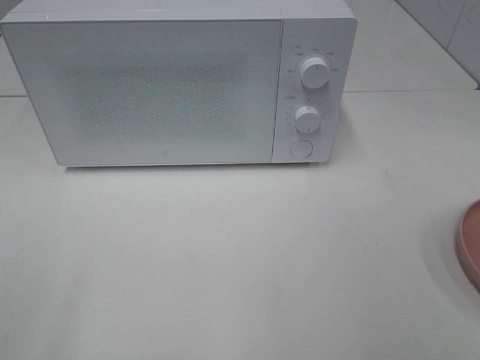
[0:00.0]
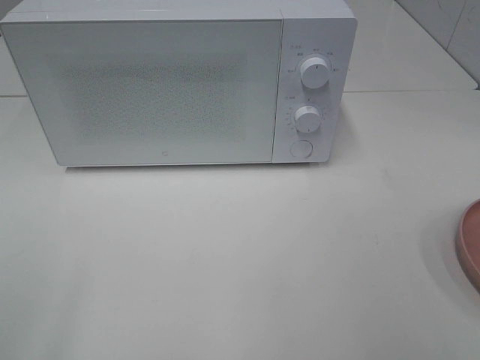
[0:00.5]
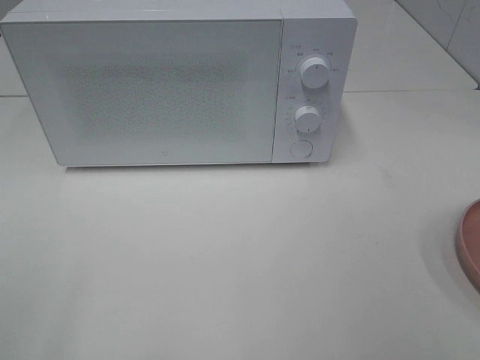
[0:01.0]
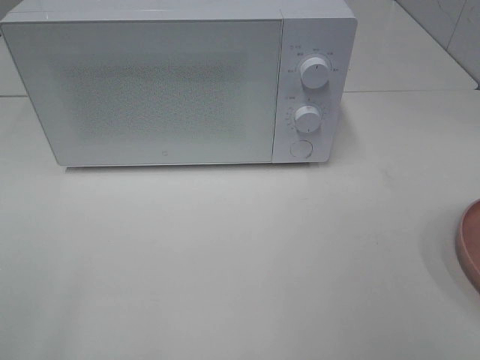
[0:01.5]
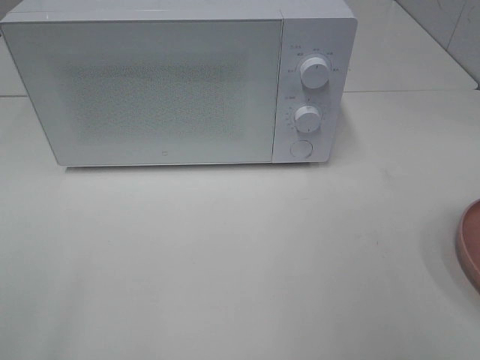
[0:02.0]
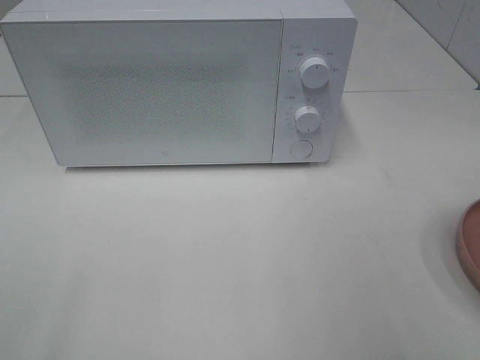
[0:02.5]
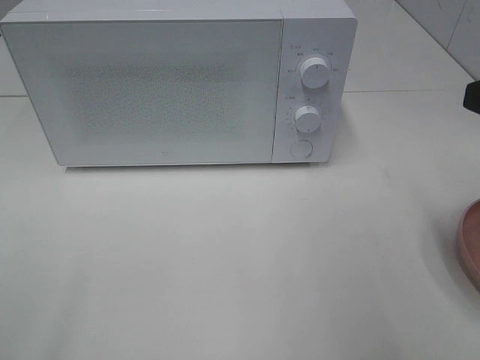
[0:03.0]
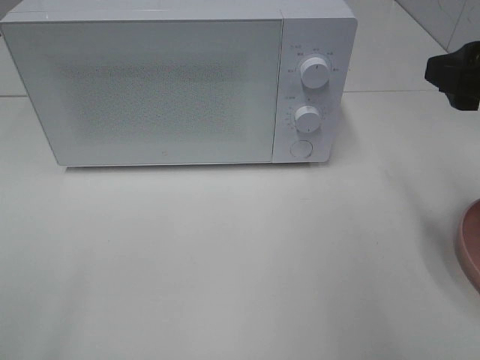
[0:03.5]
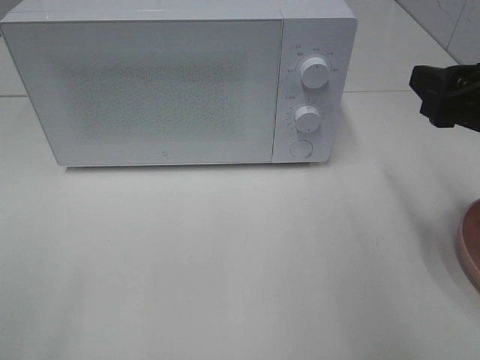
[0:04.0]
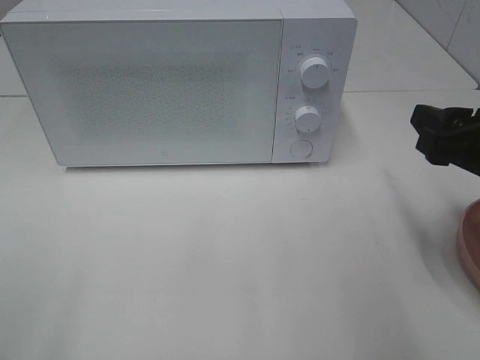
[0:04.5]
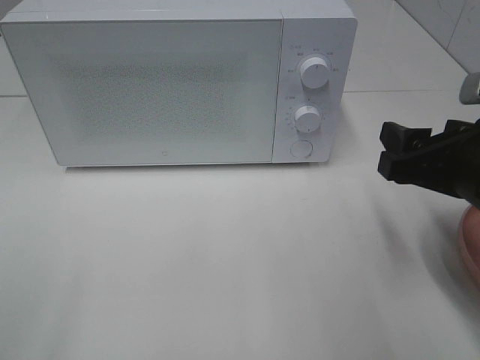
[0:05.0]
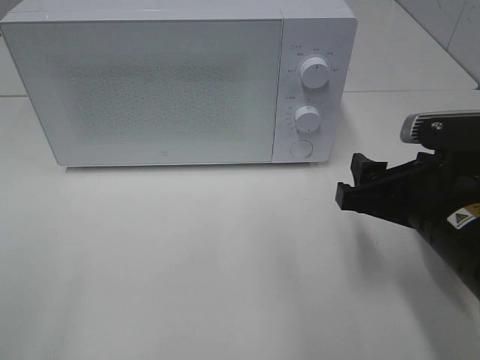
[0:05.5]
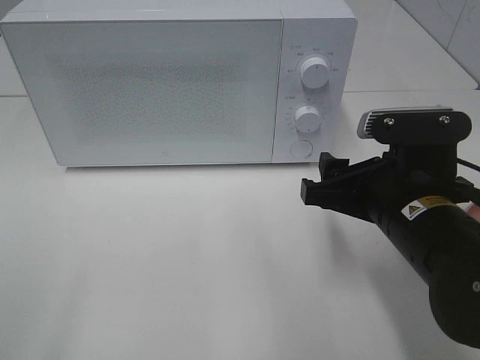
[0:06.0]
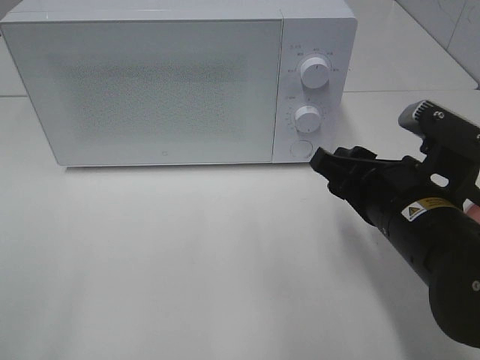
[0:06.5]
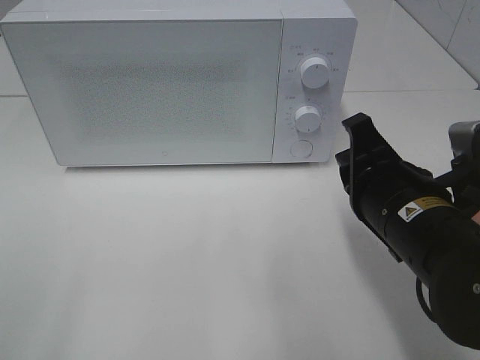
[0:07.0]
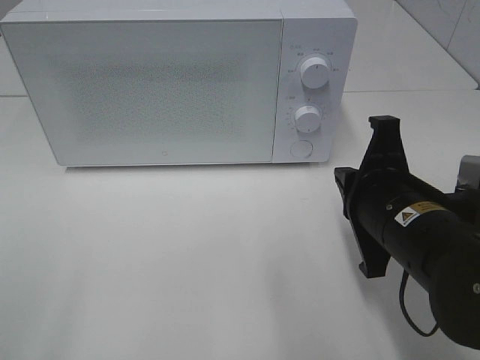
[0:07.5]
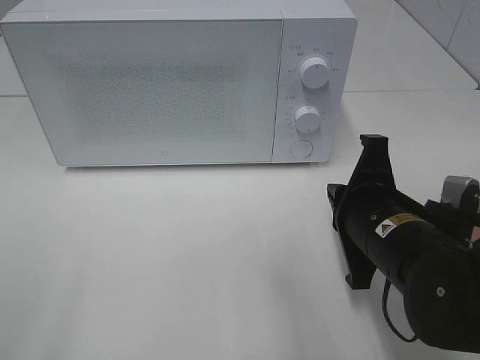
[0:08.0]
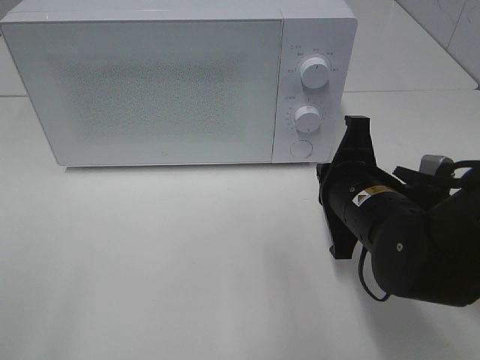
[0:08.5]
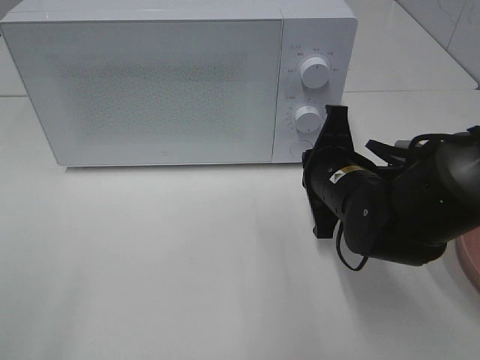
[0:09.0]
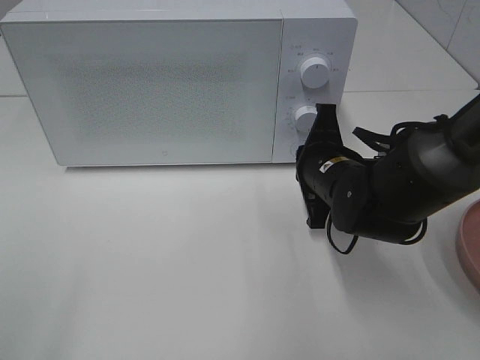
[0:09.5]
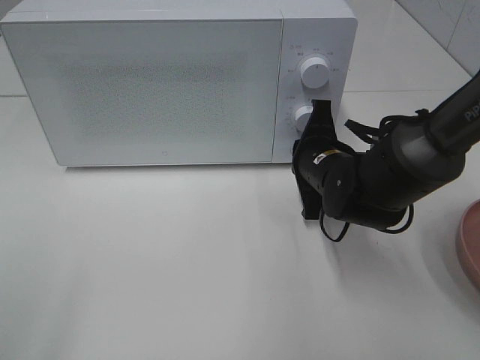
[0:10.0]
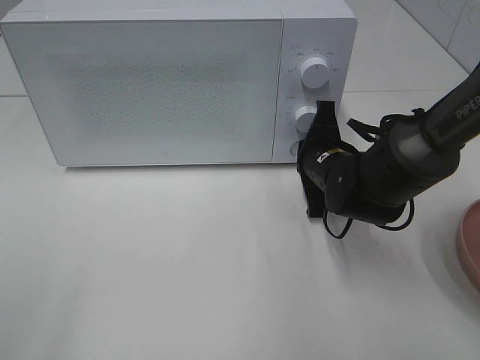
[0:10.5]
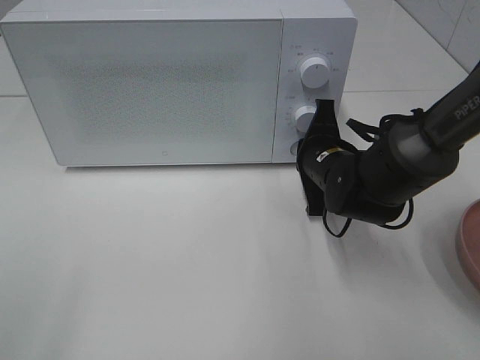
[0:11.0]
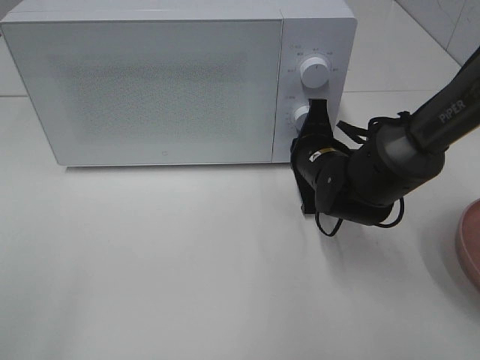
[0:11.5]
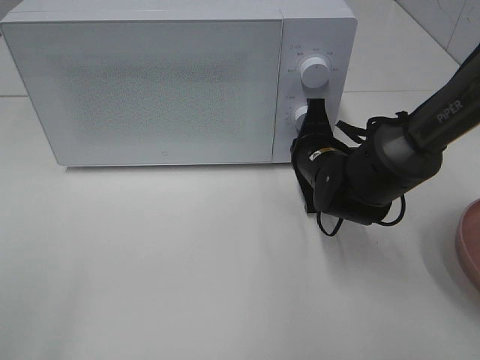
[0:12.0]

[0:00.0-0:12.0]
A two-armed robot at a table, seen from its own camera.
Task of the whole recording: Heat the burger.
0:02.0 to 0:04.0: The right gripper heads forward and downward, covering some 15 cm.
0:04.0 to 0:06.0: The right gripper travels to the left and downward by about 15 cm.
0:06.0 to 0:08.0: The right gripper closes its fingers.
0:08.0 to 0:10.0: The right gripper goes approximately 15 cm forward.
0:10.0 to 0:12.0: The grippers stay close to where they were, moving slightly.

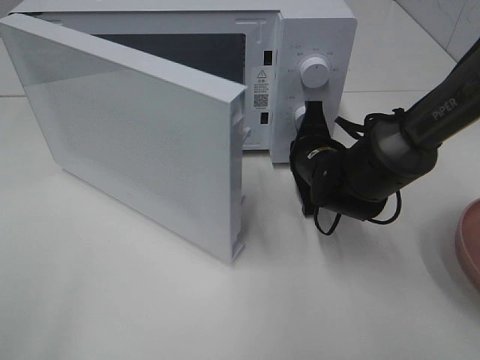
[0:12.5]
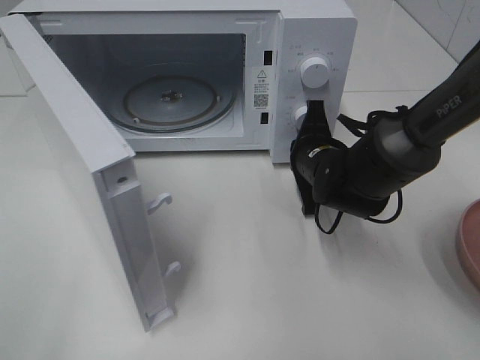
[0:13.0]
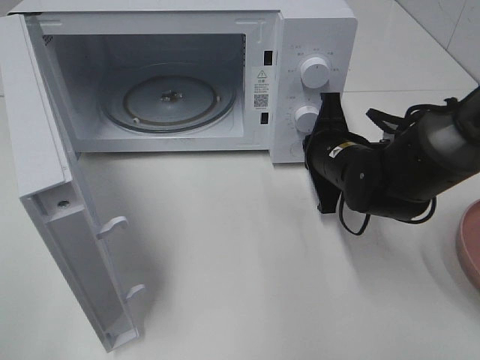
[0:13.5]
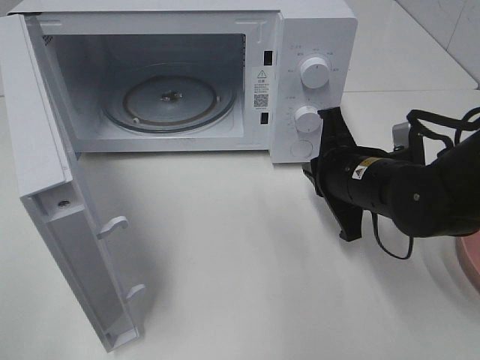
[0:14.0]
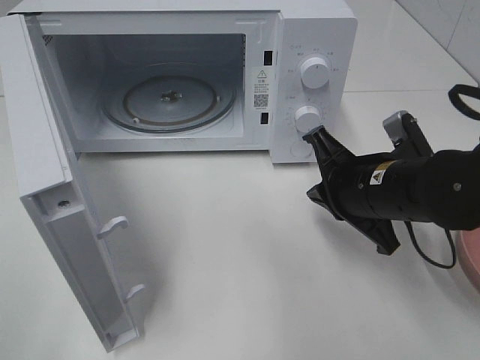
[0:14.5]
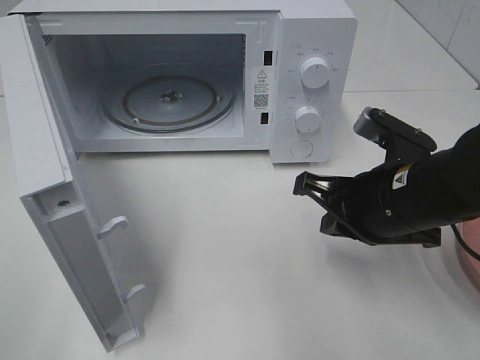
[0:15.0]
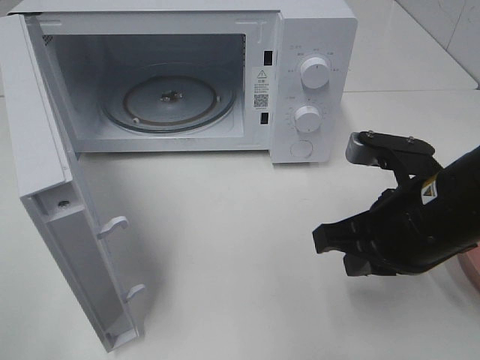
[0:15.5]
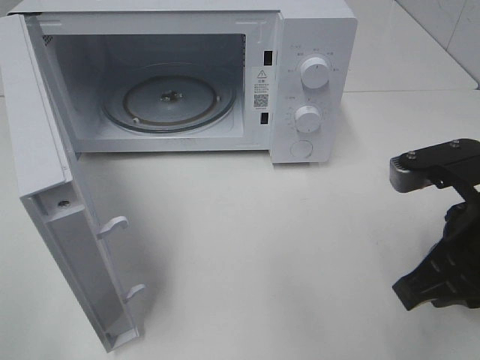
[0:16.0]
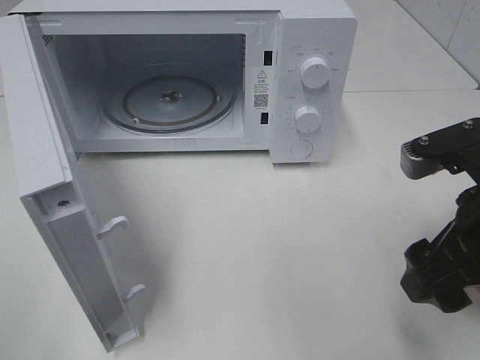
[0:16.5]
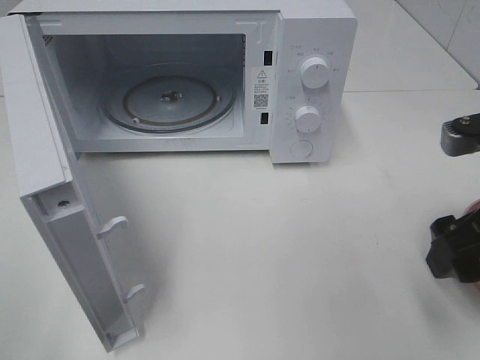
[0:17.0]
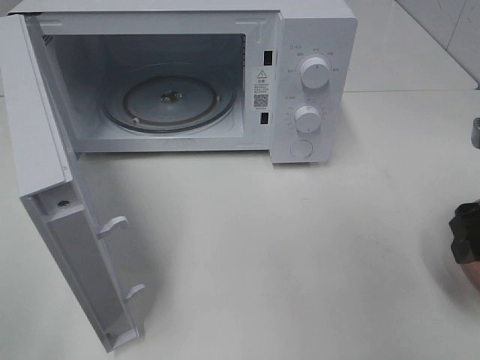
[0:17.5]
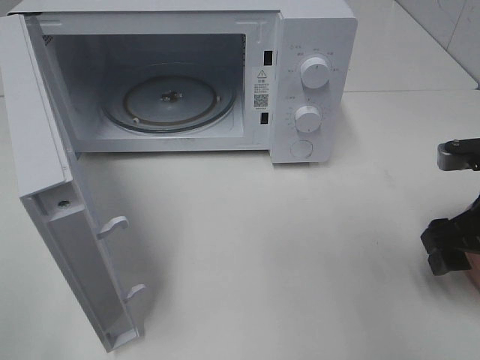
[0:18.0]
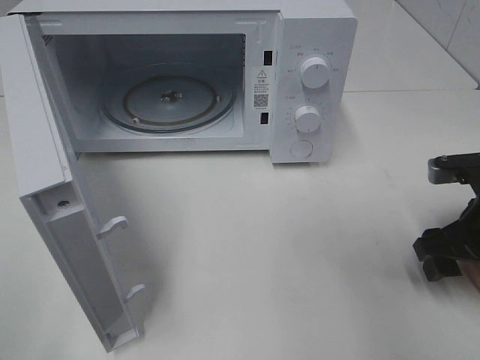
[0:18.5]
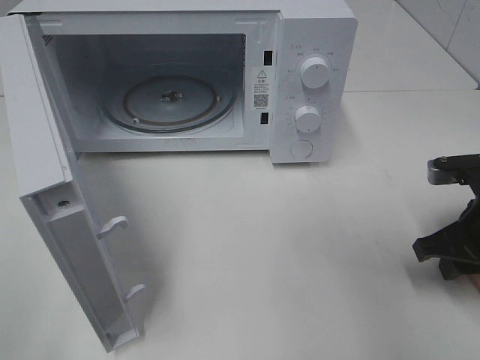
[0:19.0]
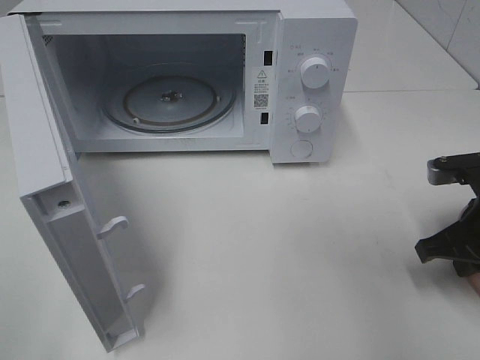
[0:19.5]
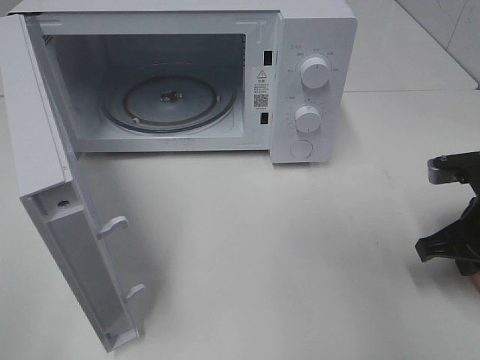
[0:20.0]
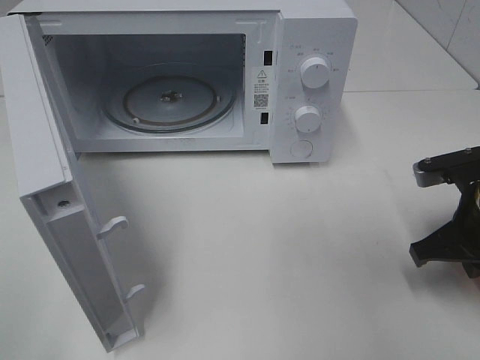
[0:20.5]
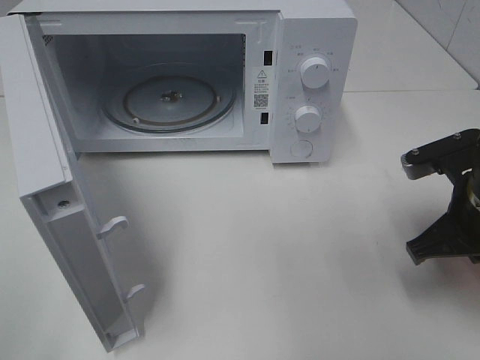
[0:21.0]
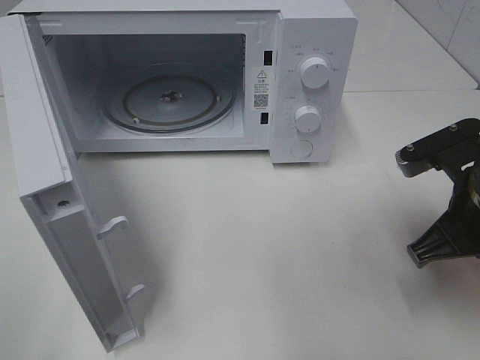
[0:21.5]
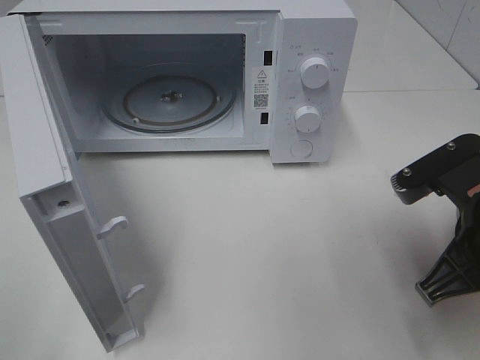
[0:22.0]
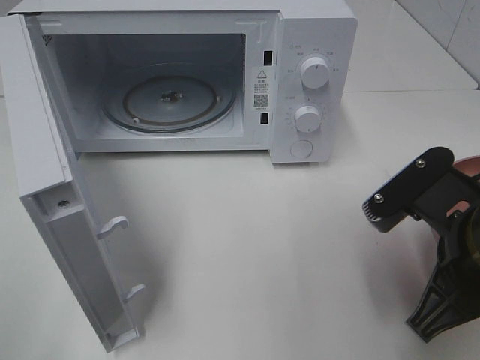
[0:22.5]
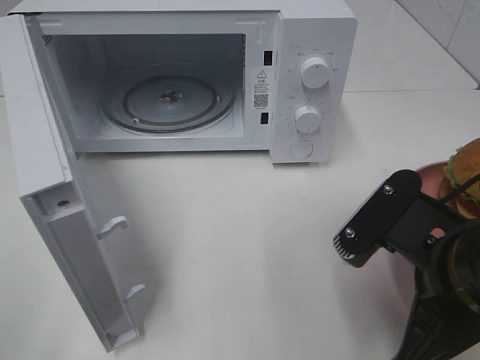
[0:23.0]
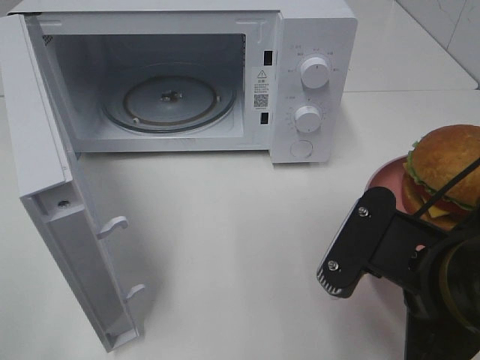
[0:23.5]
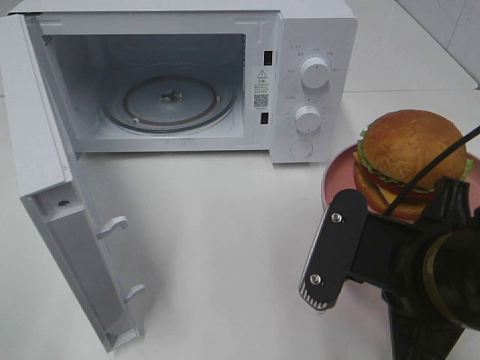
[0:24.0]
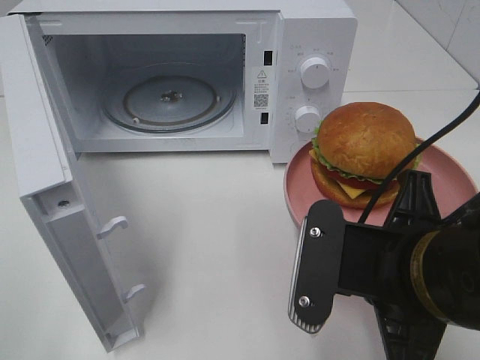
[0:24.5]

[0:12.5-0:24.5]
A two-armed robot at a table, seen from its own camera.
Task of the whole recording: Heat the burger.
Step, 0:14.0 to 0:20.0: Right hand: grab the plate with the hamburger.
0:12.5 to 0:14.5: The right gripper heads backward and upward, covering roughly 10 cm.
0:14.5 to 0:16.5: The right gripper travels backward, upward and to the right by some 15 cm, and opens.
0:16.5 to 0:18.5: The right gripper heads downward, forward and to the right, covering some 15 cm.
0:18.5 to 0:20.5: The right gripper closes up.
0:20.5 to 0:22.5: The right gripper is displaced backward, to the left and upward by some 15 cm.
0:22.5 to 0:24.5: The right gripper shifts some 5 cm to the left.

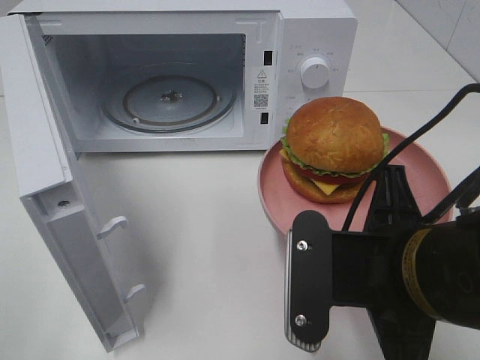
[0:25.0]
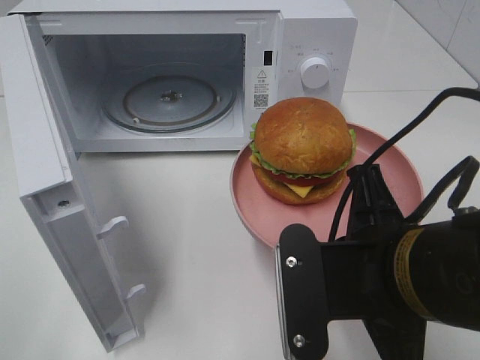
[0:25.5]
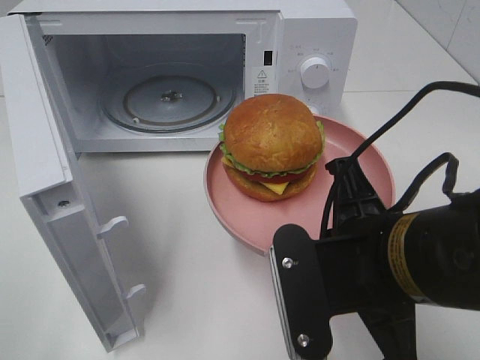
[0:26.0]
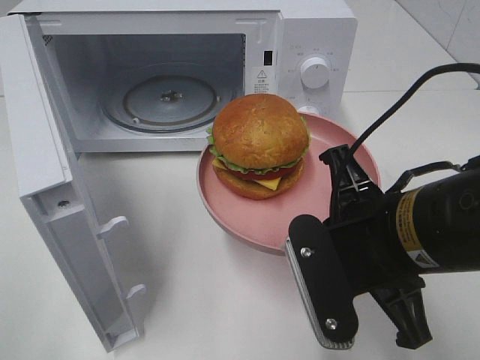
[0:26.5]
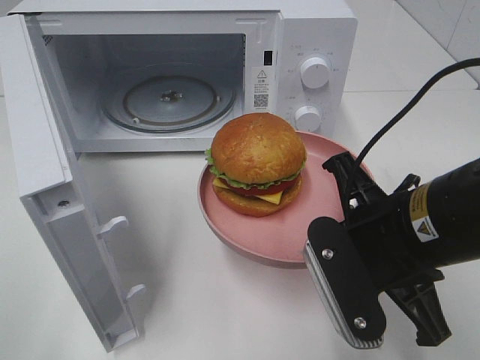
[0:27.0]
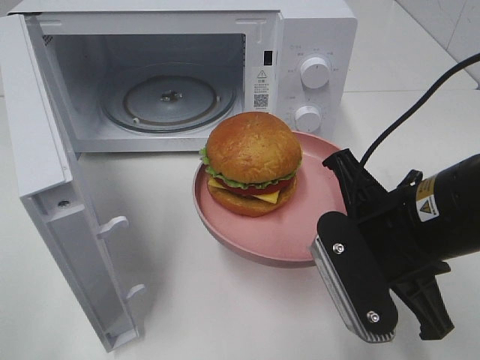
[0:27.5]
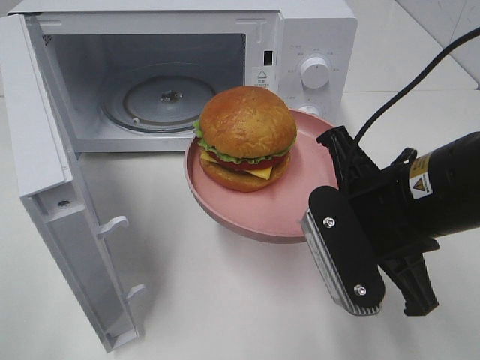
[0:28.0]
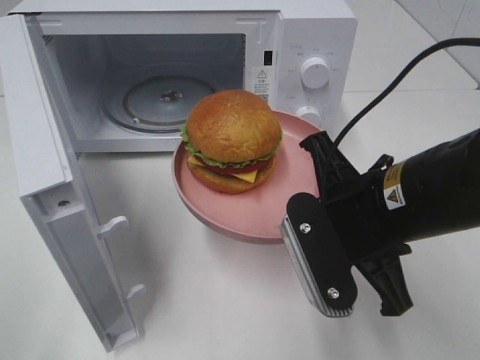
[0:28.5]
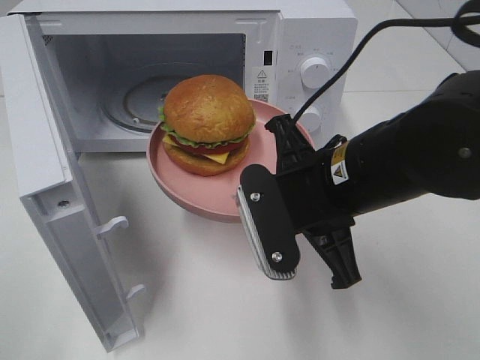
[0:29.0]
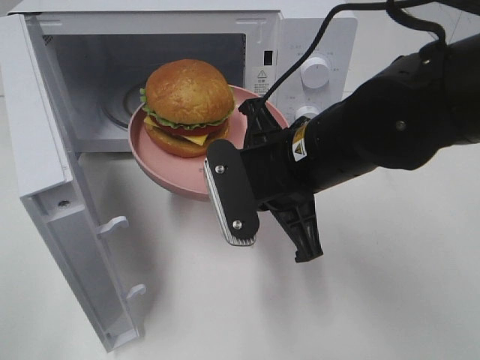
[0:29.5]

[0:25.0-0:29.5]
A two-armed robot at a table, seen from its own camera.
Task of the whole recording: Heat the burger.
0:25.0 to 0:27.0: The right gripper moves about 5 cm.
0:27.0 to 0:29.5: The right gripper heads to the left and forward, covering about 10 cm.
